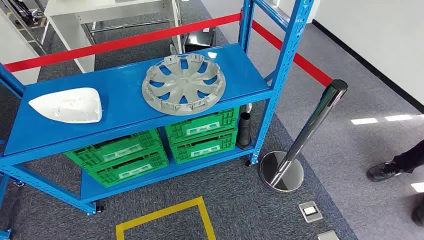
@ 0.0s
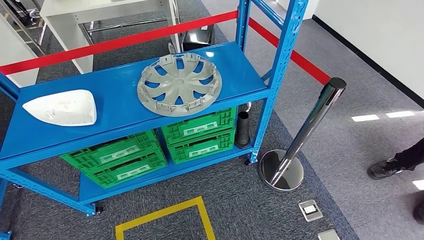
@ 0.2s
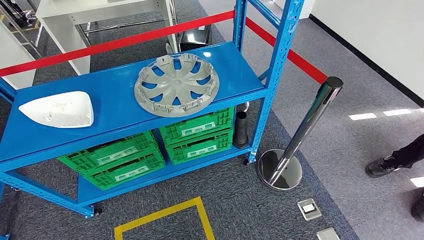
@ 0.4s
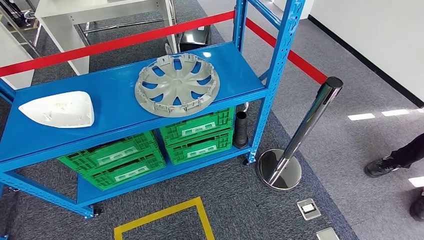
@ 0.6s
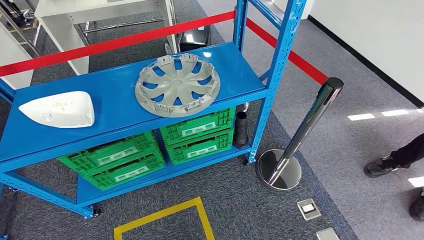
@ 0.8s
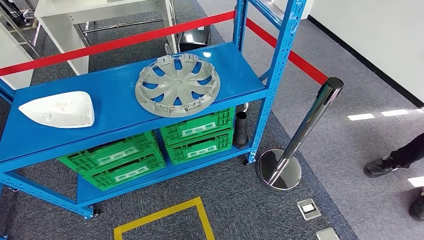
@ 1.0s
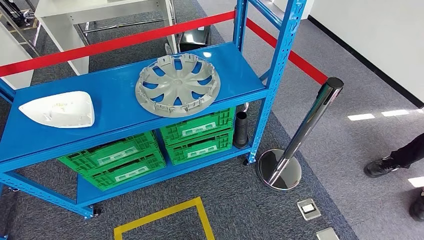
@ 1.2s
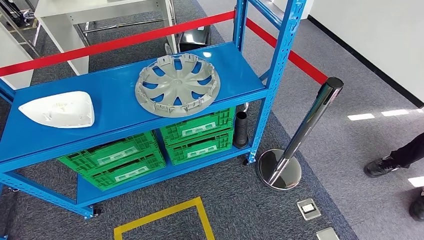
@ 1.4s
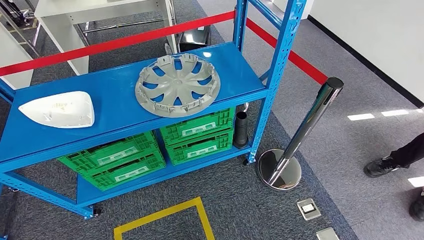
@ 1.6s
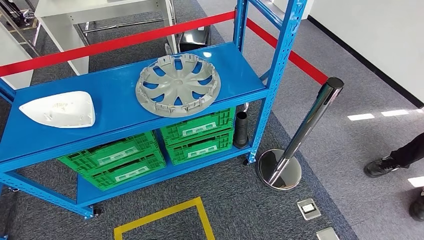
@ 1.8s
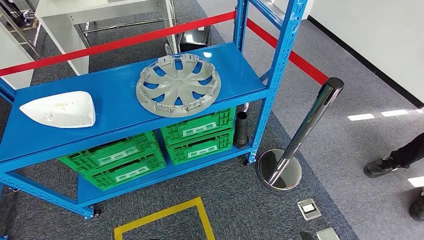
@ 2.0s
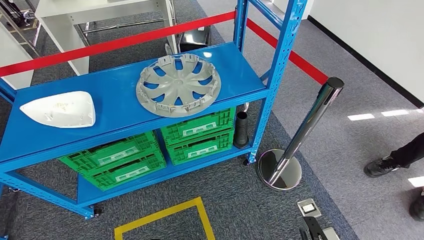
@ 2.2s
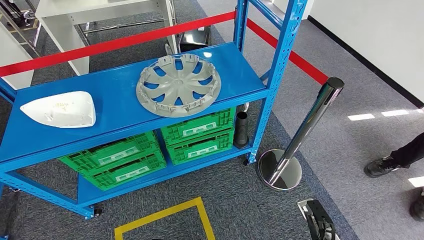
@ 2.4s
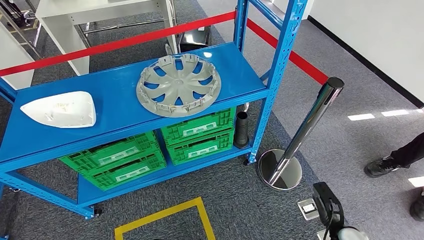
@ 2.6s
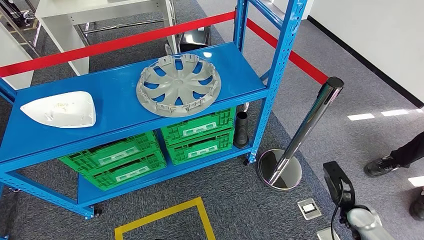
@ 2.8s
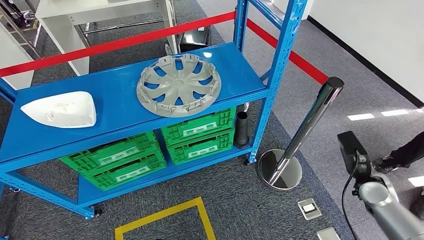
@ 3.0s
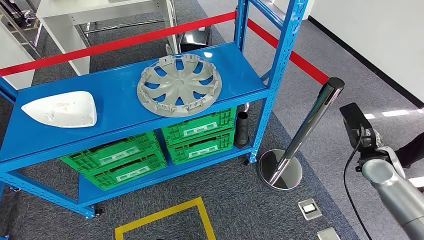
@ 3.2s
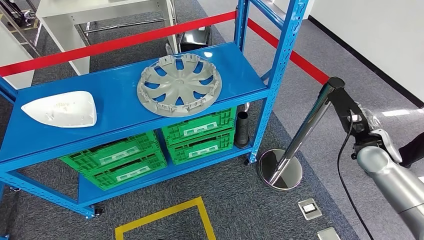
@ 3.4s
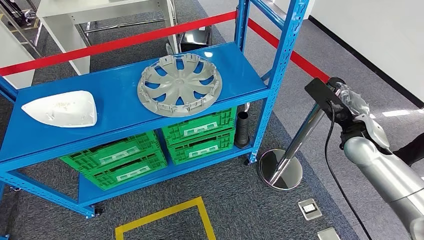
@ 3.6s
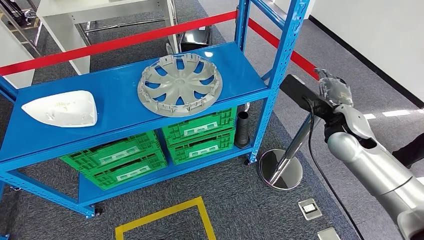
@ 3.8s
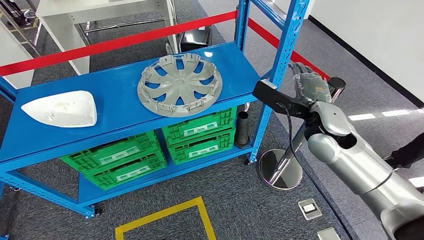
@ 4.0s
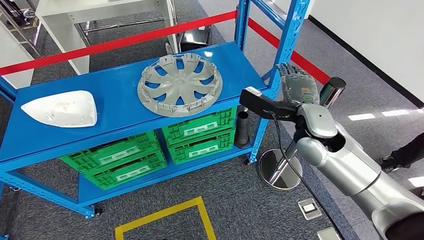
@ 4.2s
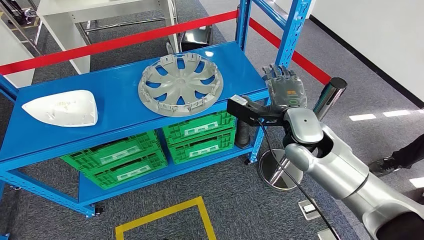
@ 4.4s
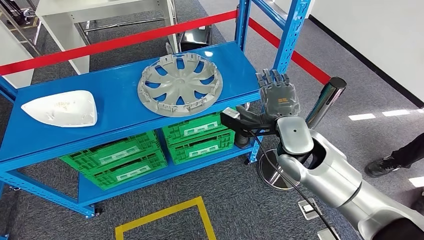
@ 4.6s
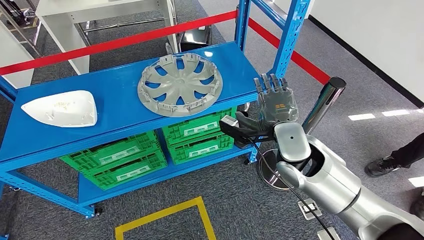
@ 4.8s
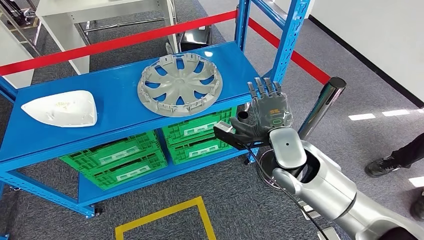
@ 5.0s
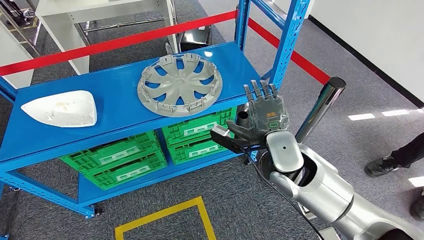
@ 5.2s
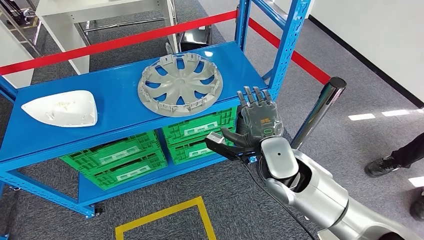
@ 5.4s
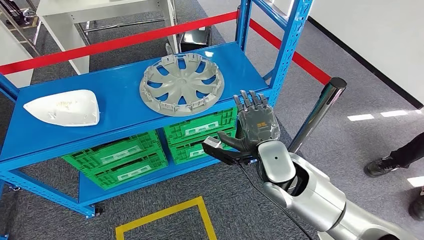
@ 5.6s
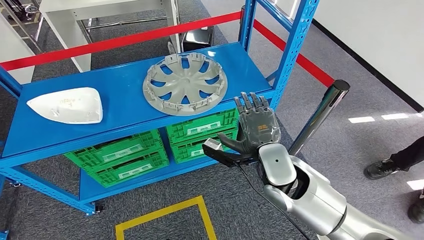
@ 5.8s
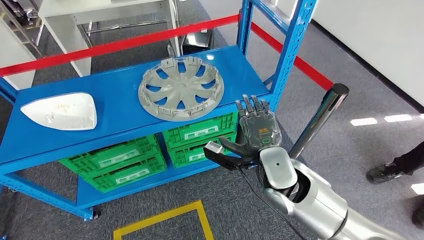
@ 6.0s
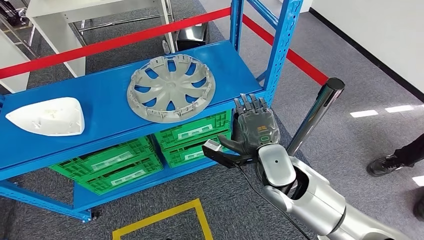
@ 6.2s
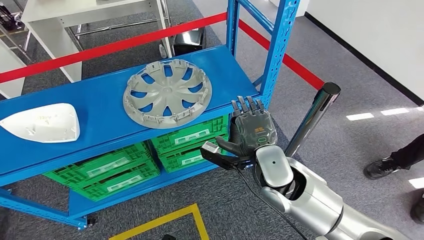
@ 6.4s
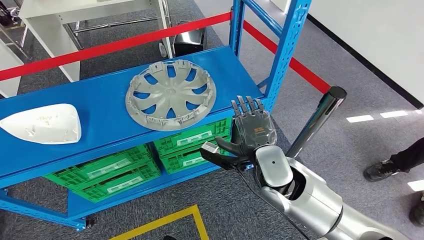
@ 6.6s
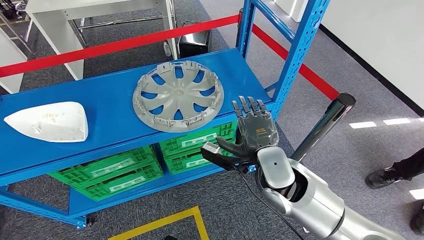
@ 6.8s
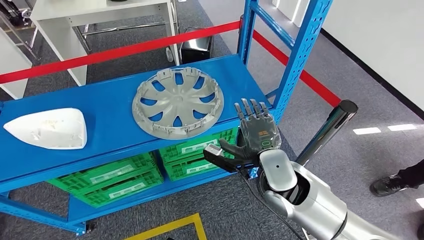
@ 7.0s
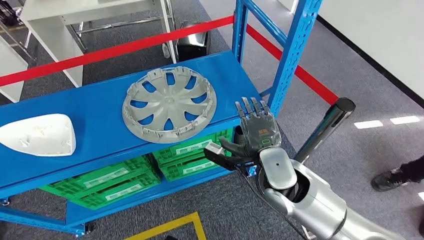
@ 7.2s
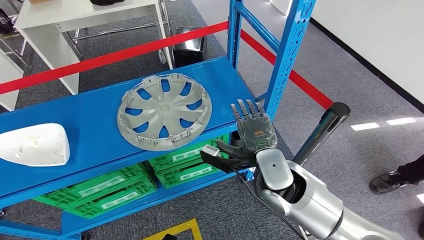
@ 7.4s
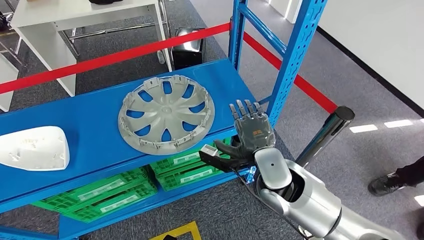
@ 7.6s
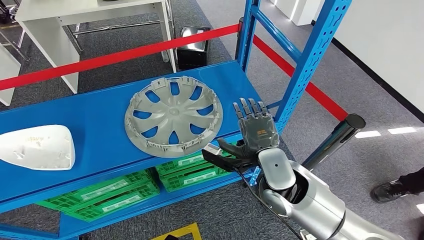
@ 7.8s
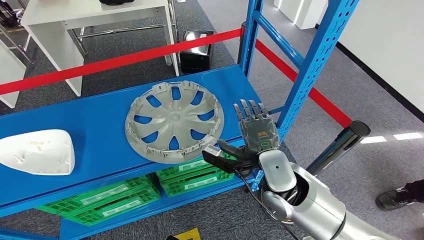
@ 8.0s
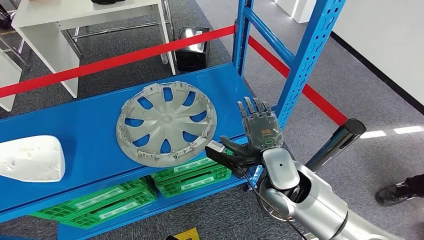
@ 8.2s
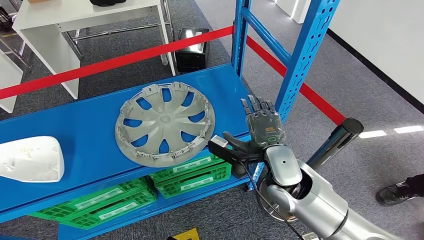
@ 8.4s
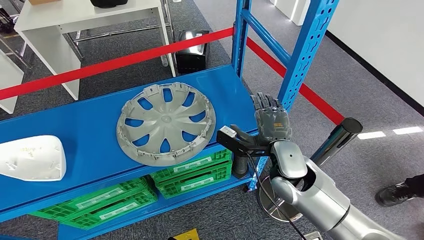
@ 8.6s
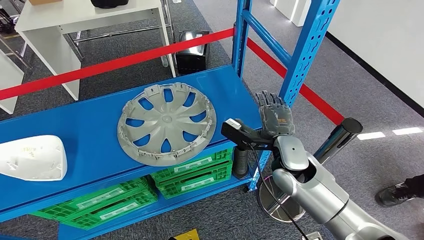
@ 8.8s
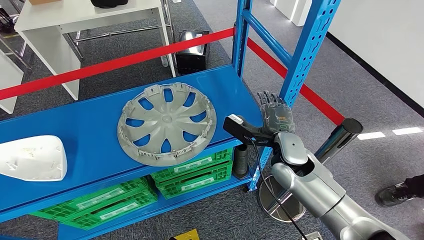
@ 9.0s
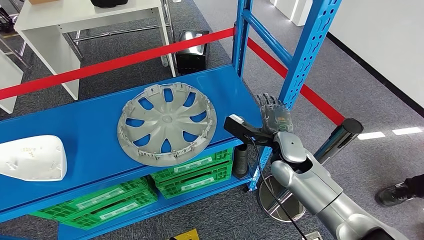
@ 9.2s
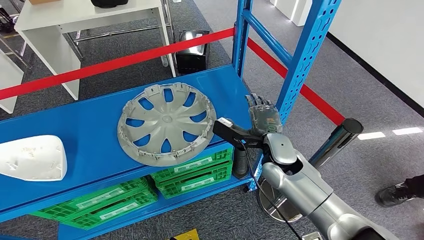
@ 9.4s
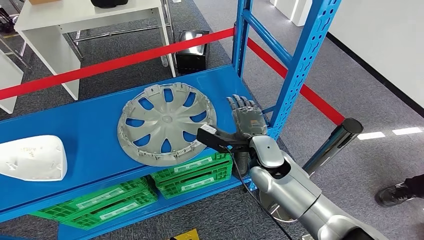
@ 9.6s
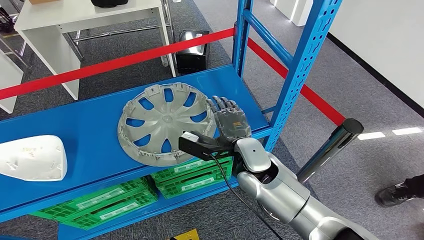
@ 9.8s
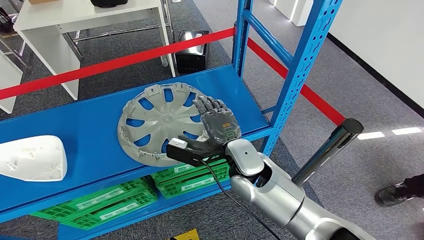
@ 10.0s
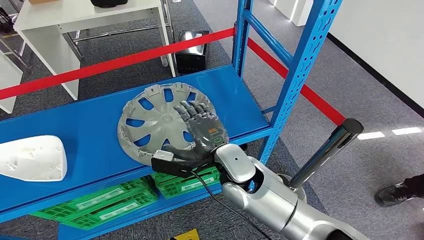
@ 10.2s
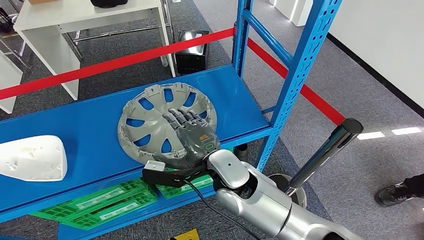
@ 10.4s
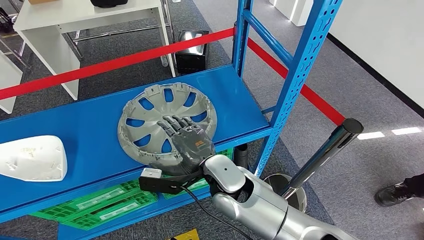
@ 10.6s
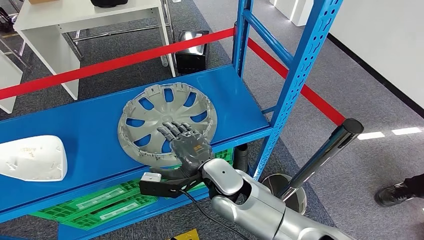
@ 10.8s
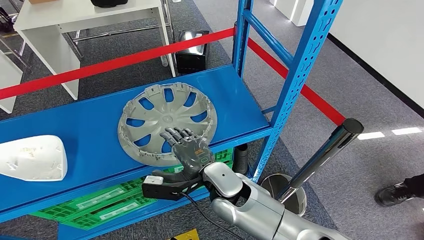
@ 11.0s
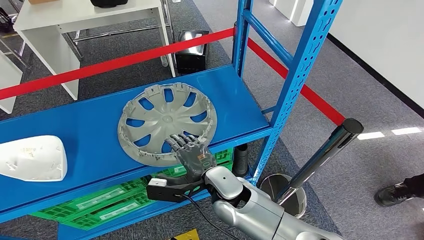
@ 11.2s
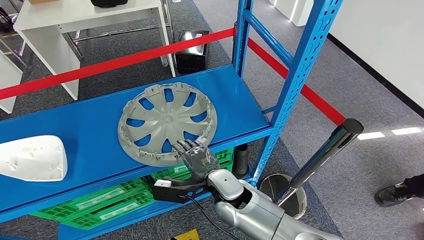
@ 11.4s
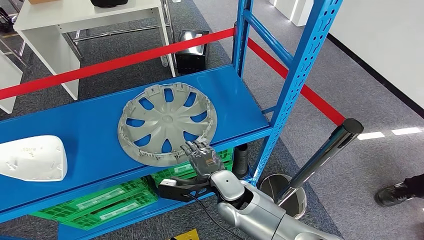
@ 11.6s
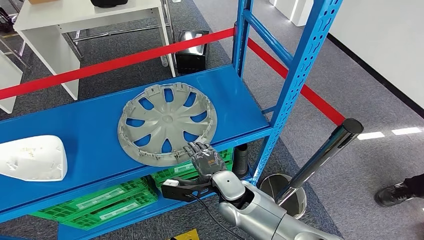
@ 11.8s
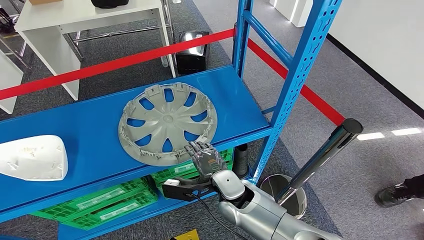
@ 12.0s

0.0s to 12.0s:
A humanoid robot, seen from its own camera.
1.6s to 3.0s: The right hand goes approximately 40 cm forward, upward and to the right.
9.0s to 10.4s: The right hand travels to the left and backward by some 15 cm.
10.4s to 12.0s: The right hand shifts roughly 10 cm downward.

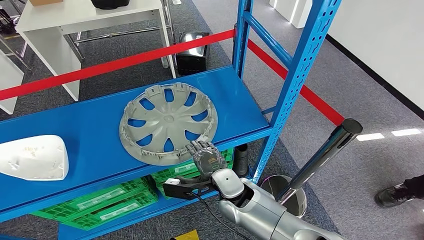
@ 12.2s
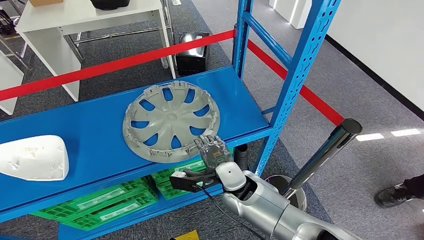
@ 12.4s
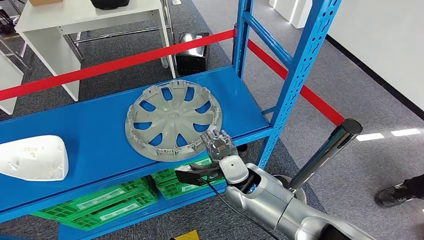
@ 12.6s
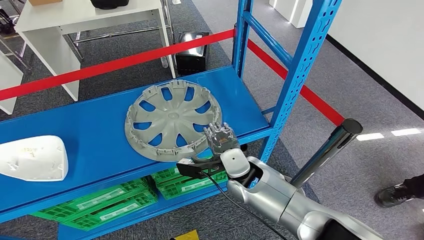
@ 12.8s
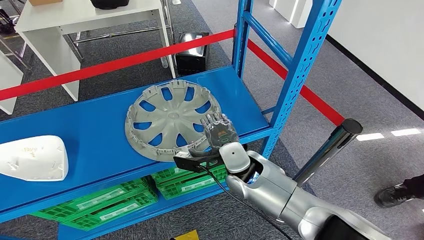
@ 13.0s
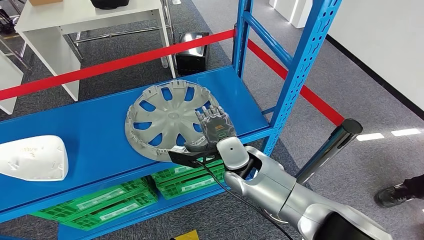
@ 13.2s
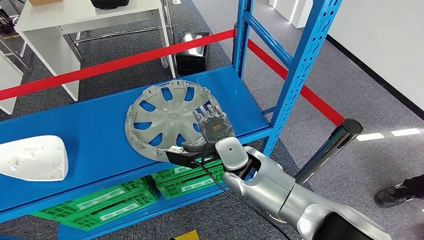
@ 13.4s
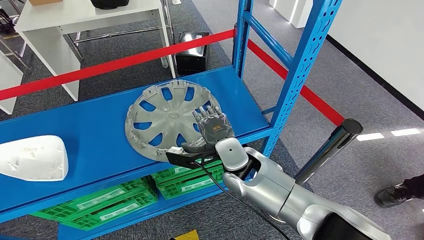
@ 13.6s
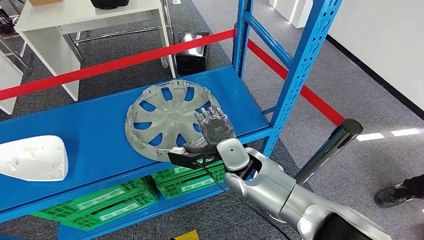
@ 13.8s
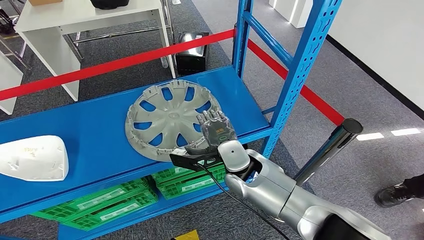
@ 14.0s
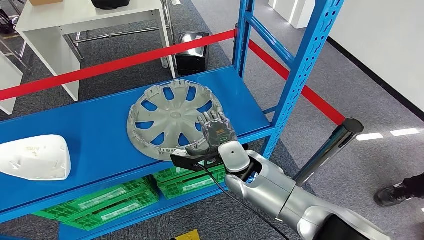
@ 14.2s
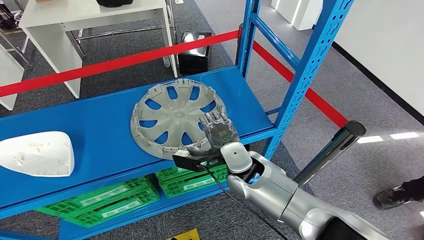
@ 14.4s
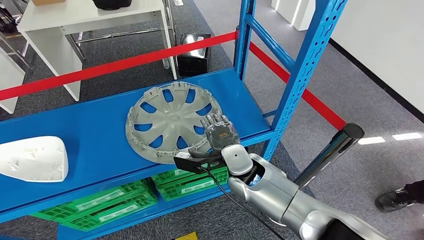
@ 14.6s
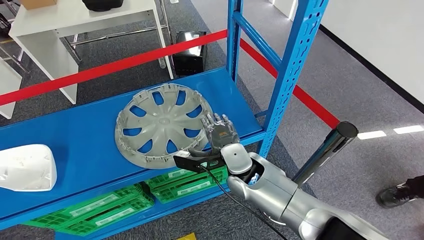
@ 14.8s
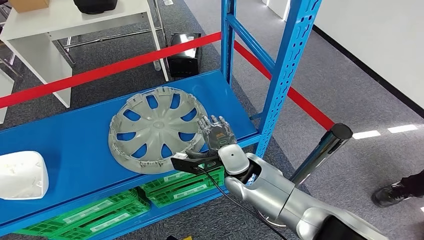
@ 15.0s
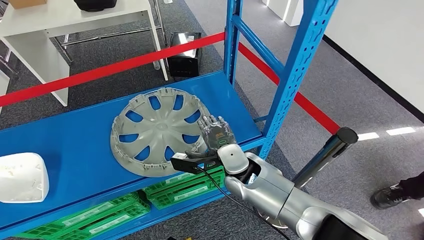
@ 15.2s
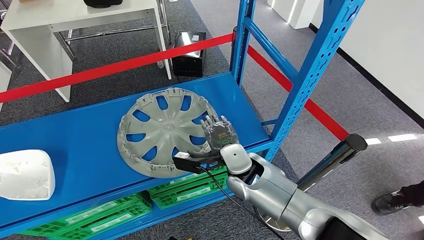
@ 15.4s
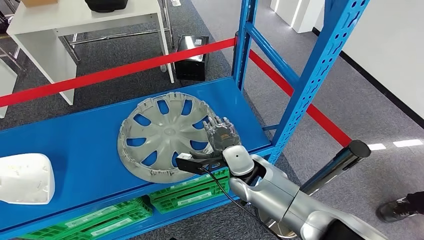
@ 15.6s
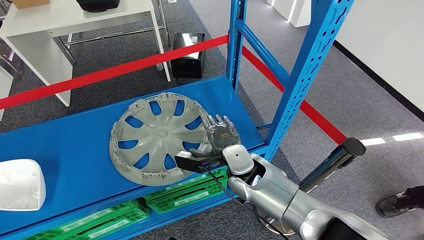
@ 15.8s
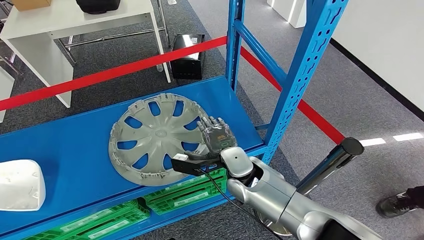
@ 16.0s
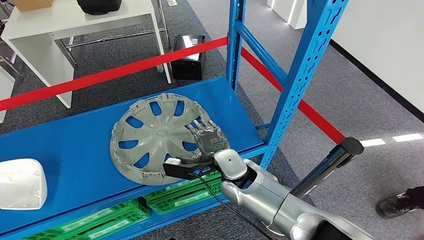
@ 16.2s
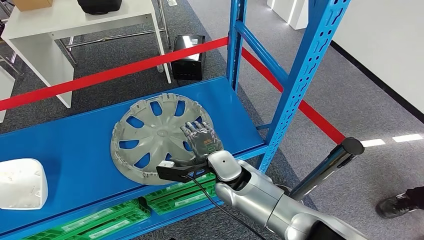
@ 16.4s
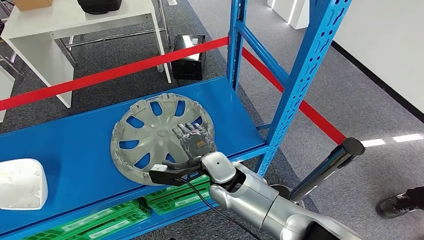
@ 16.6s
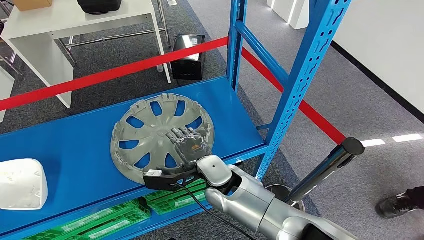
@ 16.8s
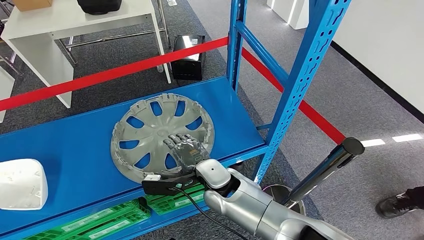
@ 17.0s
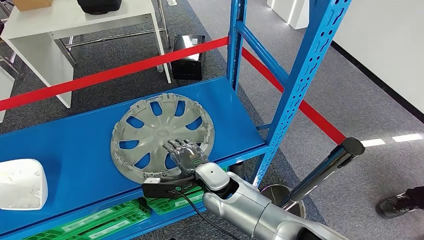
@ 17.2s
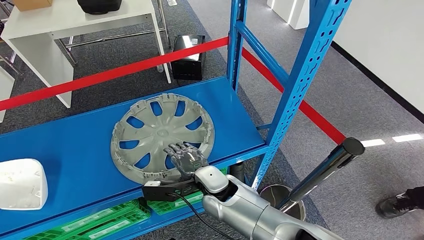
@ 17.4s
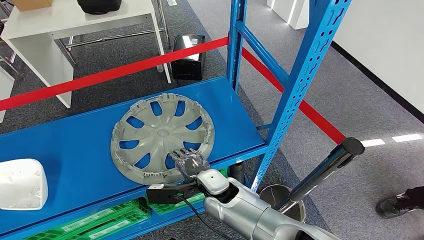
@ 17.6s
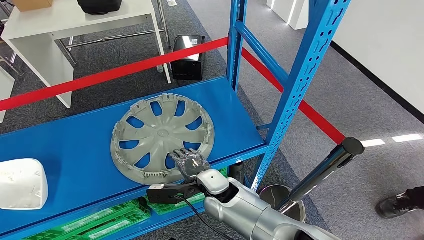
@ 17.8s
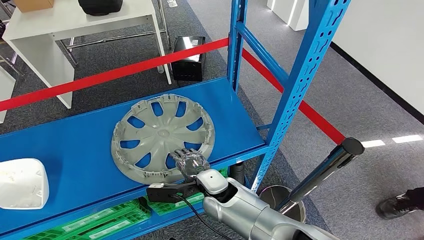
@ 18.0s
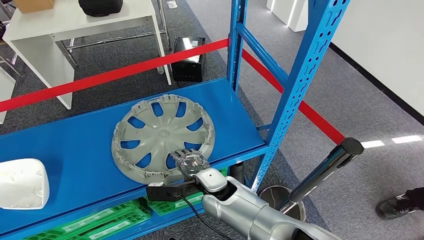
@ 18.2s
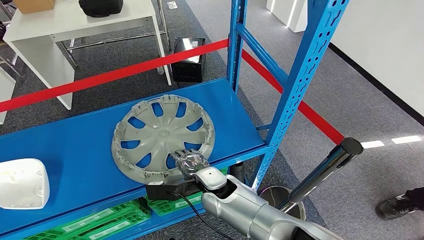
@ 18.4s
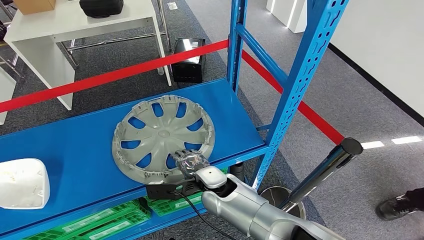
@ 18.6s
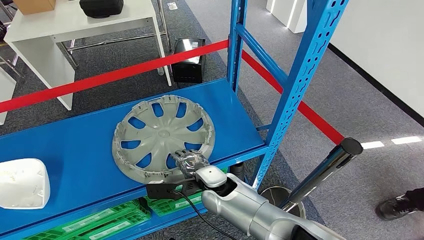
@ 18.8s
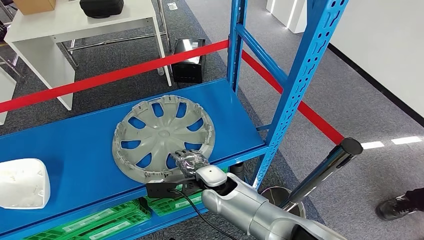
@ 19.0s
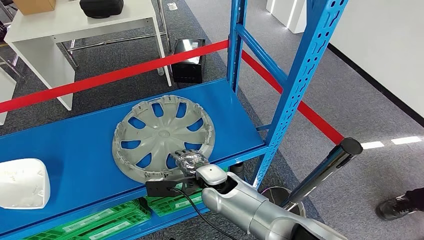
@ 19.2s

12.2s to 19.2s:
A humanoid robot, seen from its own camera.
12.2s to 13.6s: The right hand shifts roughly 10 cm upward.
16.4s to 17.8s: The hands stay close to where they were, moving slightly.
17.8s to 19.2s: The hands move only a little.
